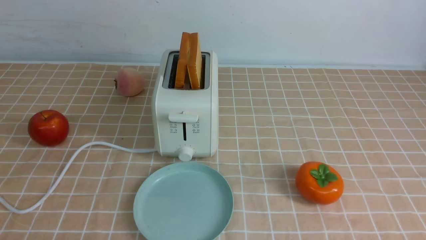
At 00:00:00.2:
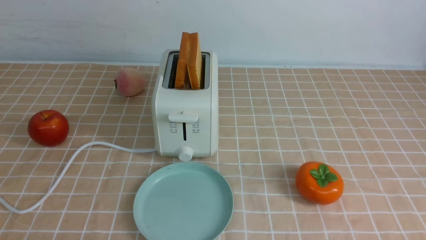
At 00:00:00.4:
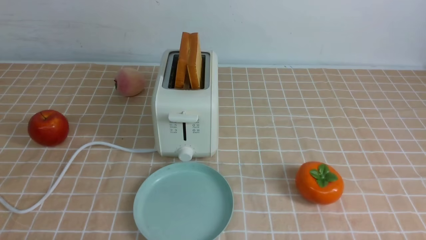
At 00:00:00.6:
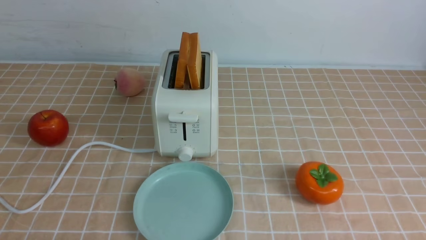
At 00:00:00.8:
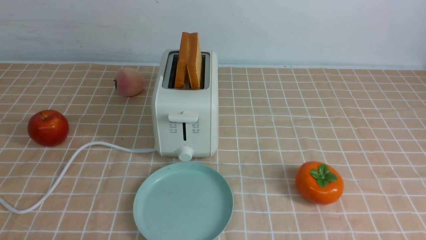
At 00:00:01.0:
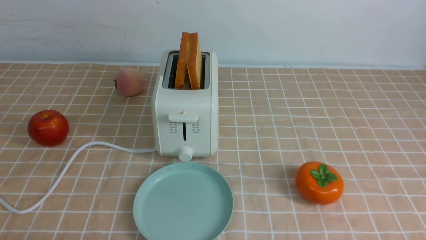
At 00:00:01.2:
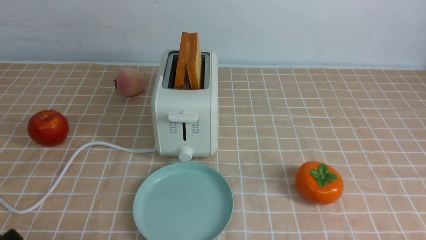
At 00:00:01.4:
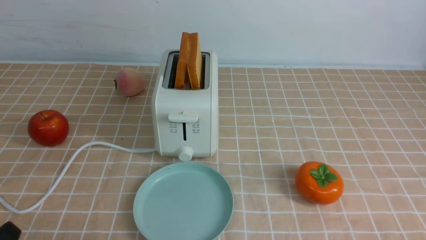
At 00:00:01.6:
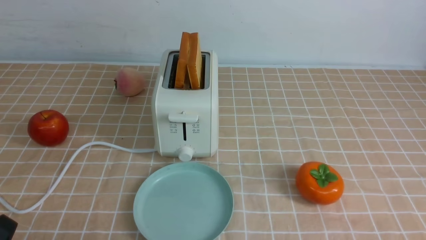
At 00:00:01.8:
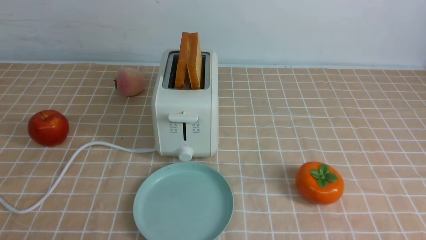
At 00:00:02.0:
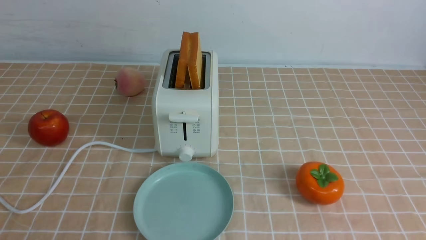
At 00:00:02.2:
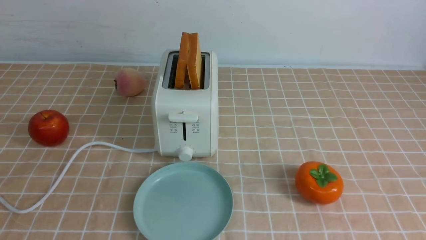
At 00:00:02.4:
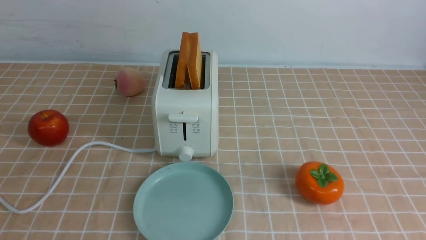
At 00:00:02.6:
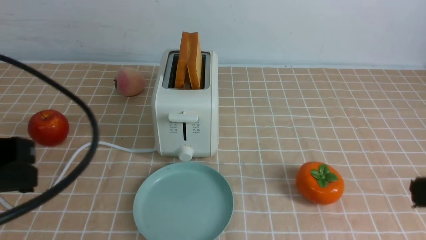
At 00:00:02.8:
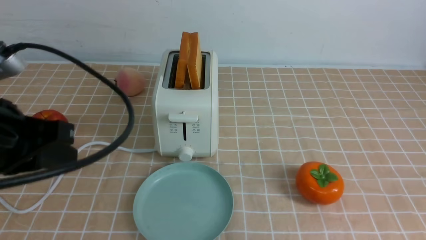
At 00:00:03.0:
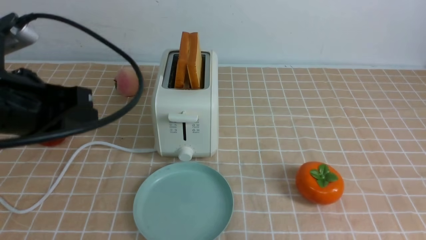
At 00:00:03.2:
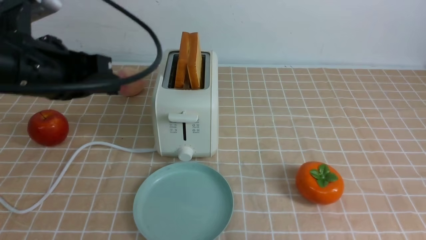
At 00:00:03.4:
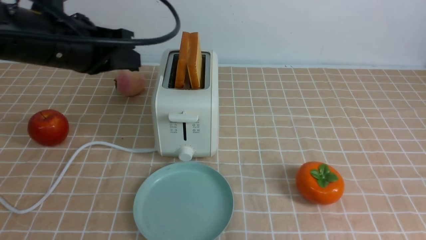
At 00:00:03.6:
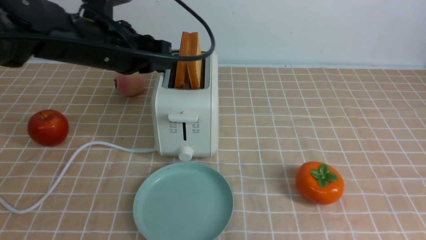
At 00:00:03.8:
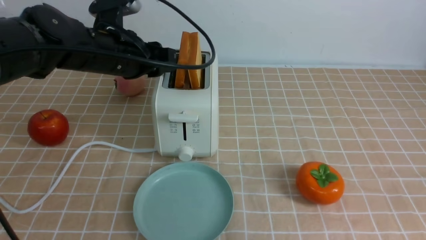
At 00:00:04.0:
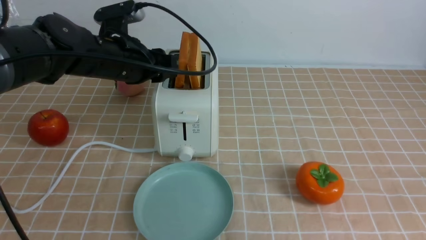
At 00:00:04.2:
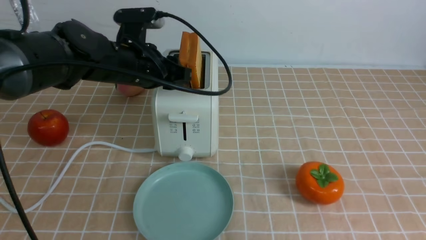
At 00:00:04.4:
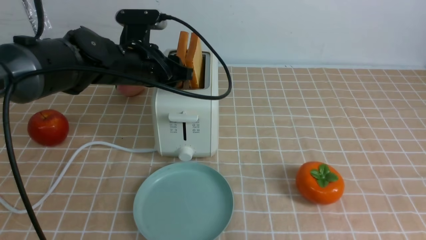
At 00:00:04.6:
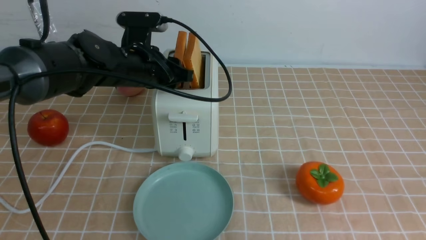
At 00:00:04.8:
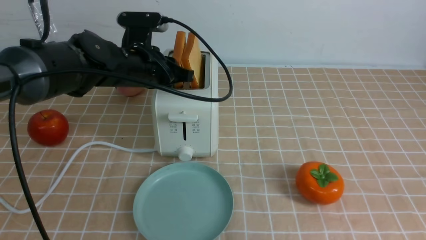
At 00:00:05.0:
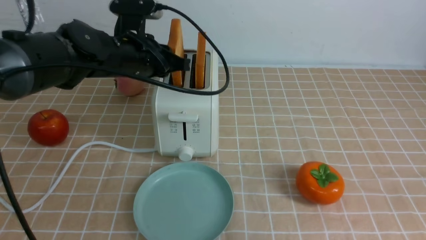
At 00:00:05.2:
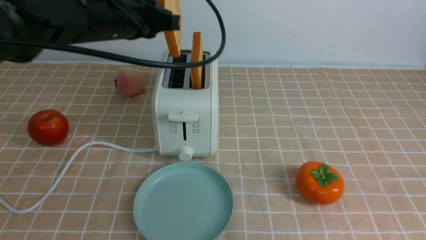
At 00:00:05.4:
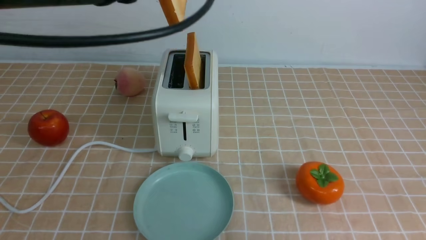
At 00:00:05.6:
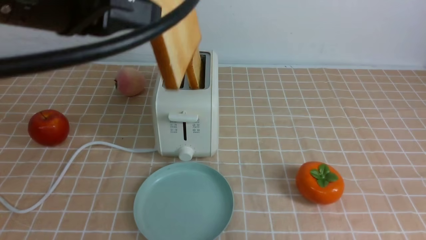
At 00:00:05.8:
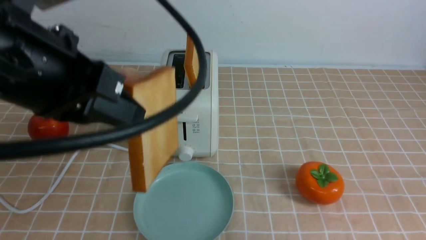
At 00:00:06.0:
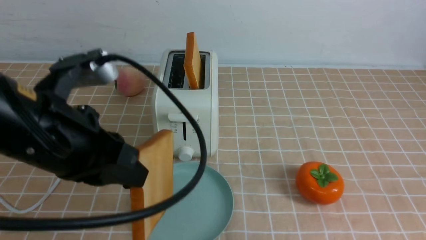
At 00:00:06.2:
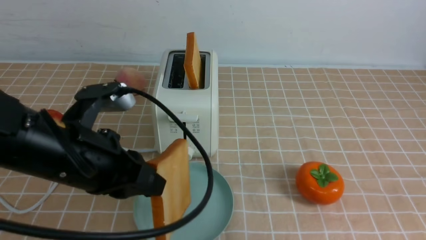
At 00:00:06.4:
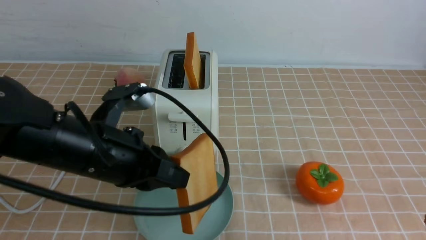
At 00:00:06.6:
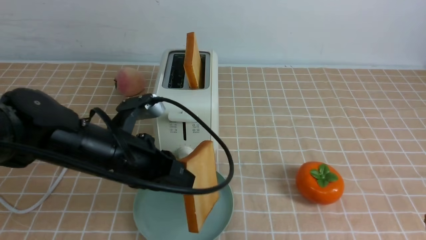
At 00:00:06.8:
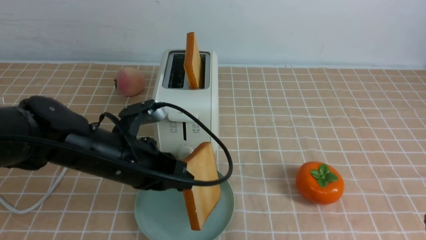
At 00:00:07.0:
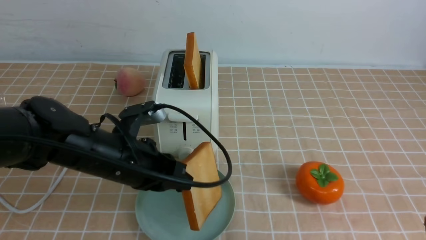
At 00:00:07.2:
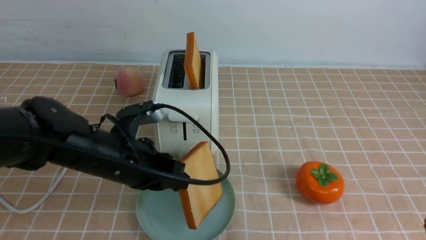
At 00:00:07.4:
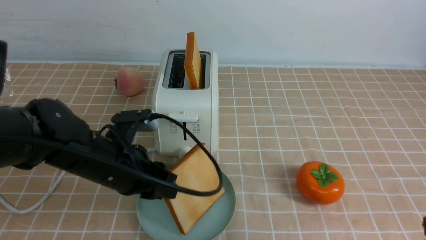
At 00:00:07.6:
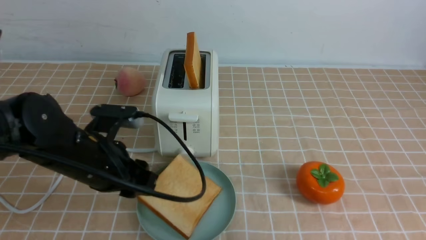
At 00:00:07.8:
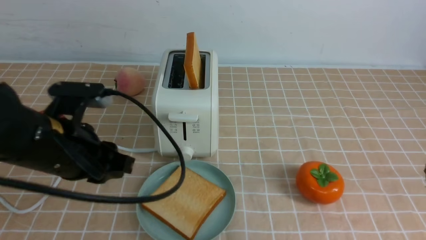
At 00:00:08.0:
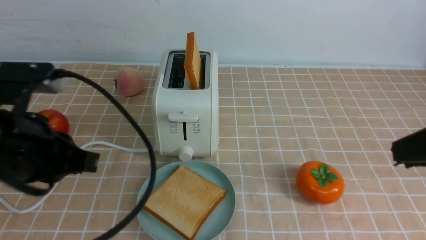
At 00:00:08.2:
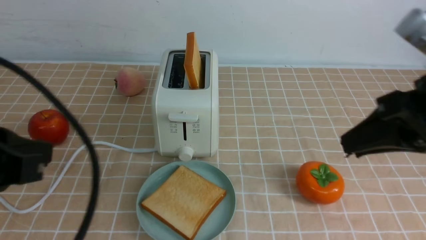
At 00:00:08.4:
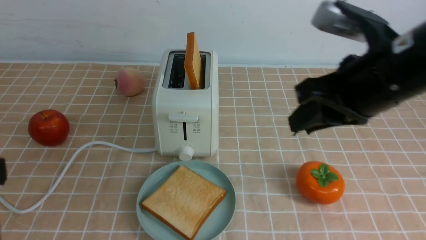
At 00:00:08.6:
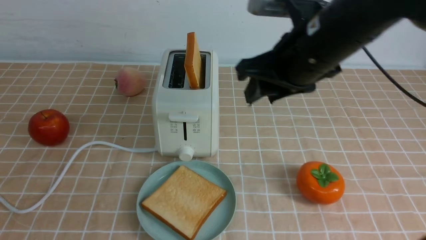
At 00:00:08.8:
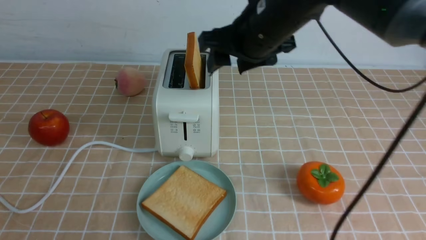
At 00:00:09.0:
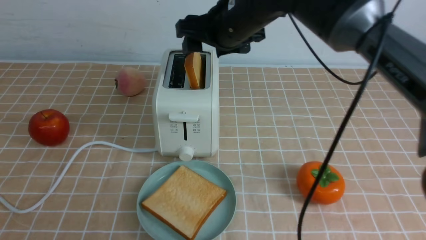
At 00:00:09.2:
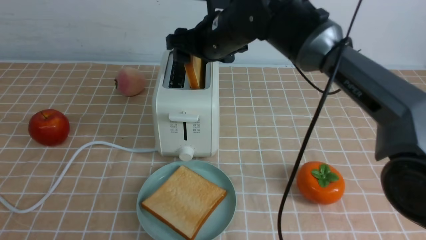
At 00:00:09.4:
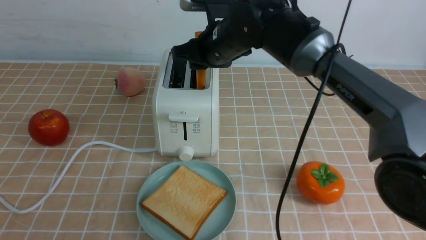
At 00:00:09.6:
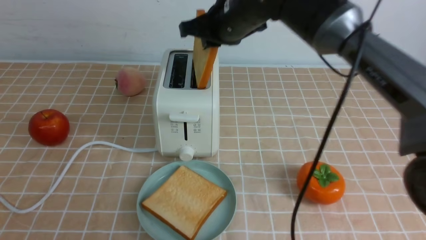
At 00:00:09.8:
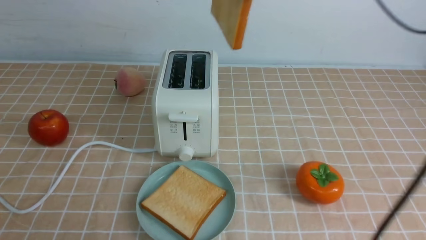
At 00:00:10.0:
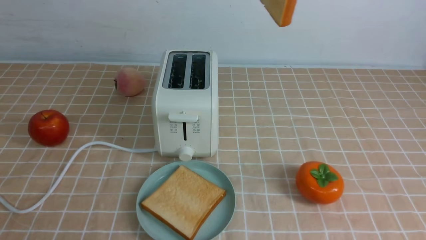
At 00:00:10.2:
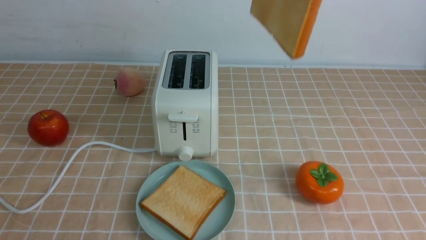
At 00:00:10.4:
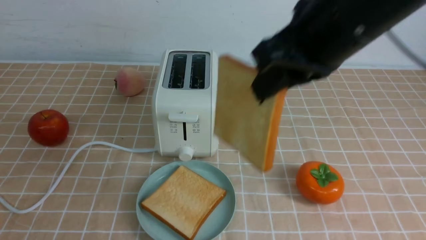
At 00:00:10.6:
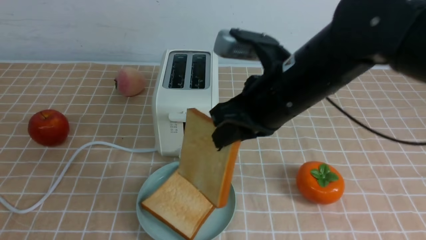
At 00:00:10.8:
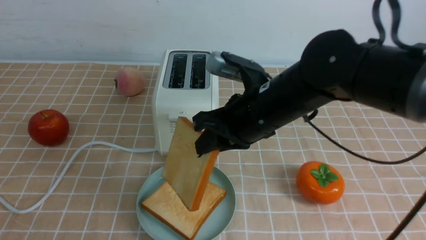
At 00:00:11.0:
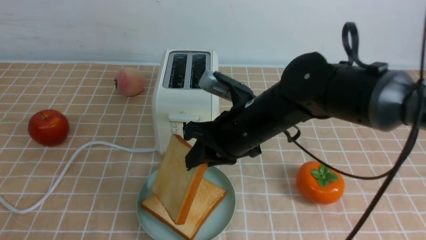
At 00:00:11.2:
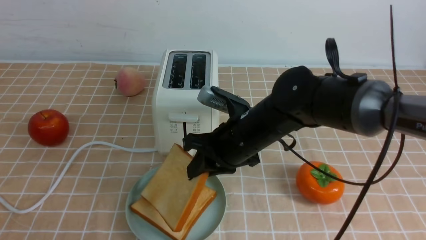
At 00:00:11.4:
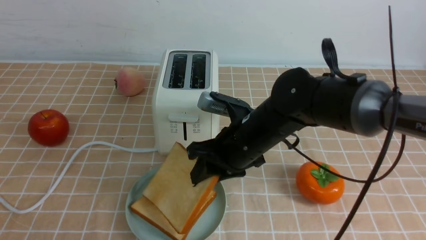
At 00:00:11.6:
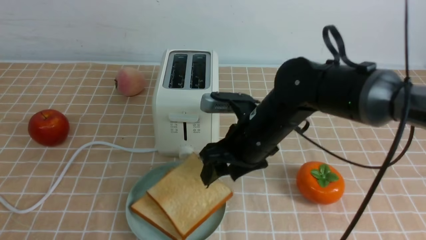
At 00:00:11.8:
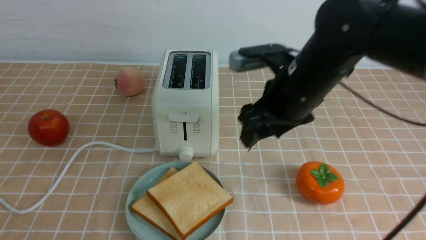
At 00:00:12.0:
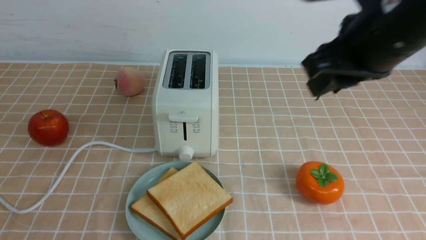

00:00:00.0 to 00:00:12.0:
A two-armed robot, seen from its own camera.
Task of the whole recording: take toasted bread from bread machine on light coffee tablecloth place on plate.
Step, 00:00:00.0 to 00:00:05.0: use the left arm to take out a slice of bread.
Step, 00:00:05.2 to 00:00:07.8: use the left arm to put a slice of bread into the empty plate.
Step, 00:00:08.0 to 00:00:09.4: use the right arm to take out a slice of bread.
Step, 00:00:09.8 to 00:00:11.6: use the right arm to put a slice of bread into the plate.
00:00:01.6 to 00:00:03.0: The left gripper moves forward and upward, approximately 25 cm, and closes up.
00:00:03.0 to 00:00:04.4: The left gripper shifts approximately 20 cm forward, to the right and downward, and opens.
00:00:04.4 to 00:00:06.0: The left gripper moves backward, roughly 20 cm, and closes up.
00:00:06.0 to 00:00:07.6: The left gripper travels downward by some 10 cm, and opens its fingers.
00:00:07.6 to 00:00:09.0: The left gripper goes approximately 25 cm backward, and closes its fingers, while the right gripper shifts approximately 35 cm forward and to the left, and opens its fingers.
00:00:09.0 to 00:00:10.4: The right gripper is displaced backward and to the right by approximately 15 cm, reaches some 15 cm upward, then returns, and closes.
00:00:10.4 to 00:00:12.0: The right gripper is displaced to the right by about 5 cm, moves about 20 cm downward and comes back, and opens, then closes again.

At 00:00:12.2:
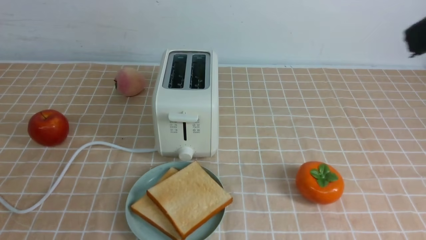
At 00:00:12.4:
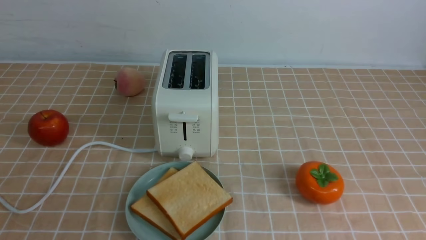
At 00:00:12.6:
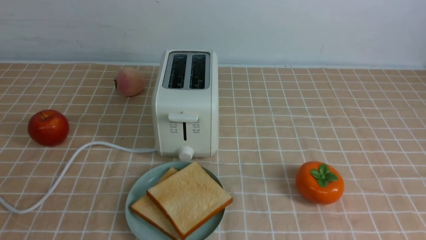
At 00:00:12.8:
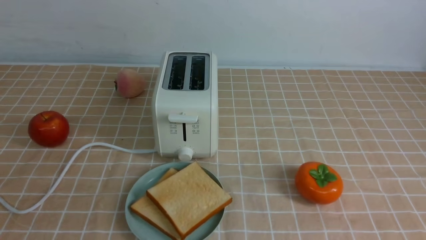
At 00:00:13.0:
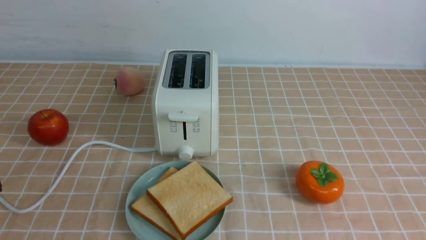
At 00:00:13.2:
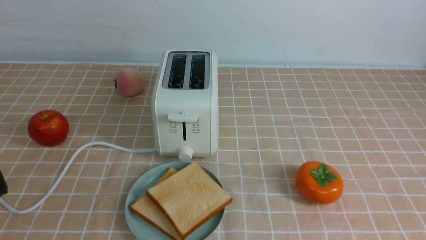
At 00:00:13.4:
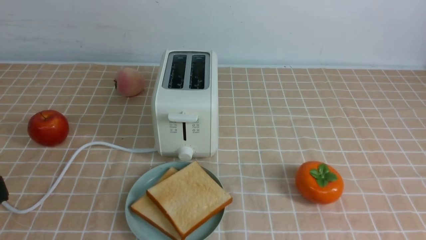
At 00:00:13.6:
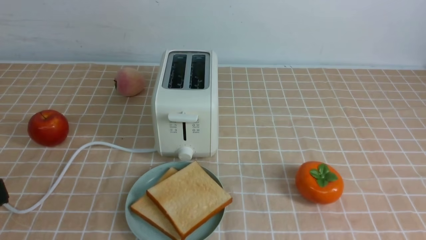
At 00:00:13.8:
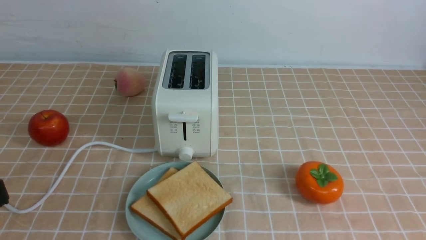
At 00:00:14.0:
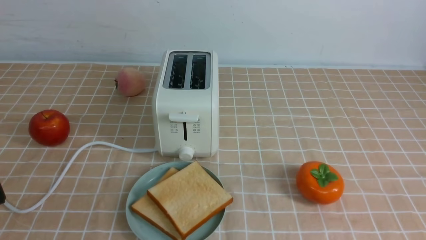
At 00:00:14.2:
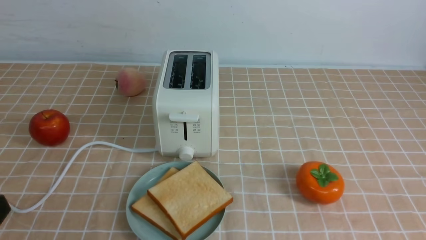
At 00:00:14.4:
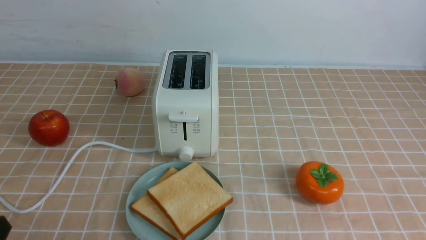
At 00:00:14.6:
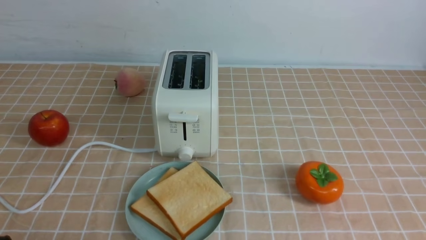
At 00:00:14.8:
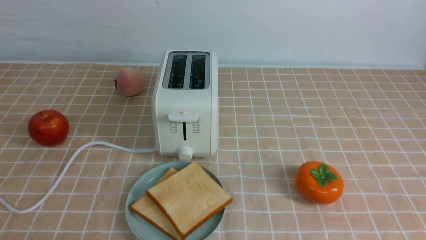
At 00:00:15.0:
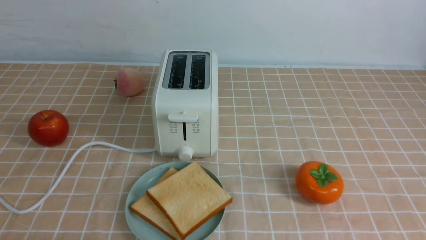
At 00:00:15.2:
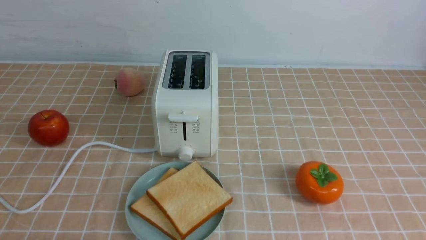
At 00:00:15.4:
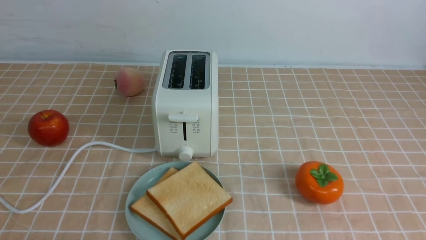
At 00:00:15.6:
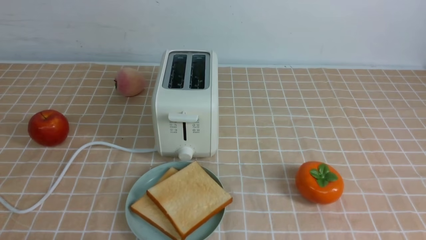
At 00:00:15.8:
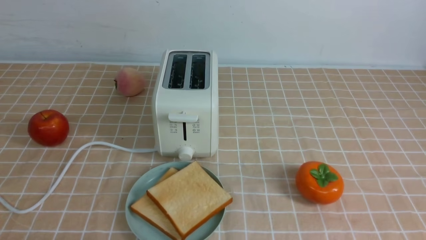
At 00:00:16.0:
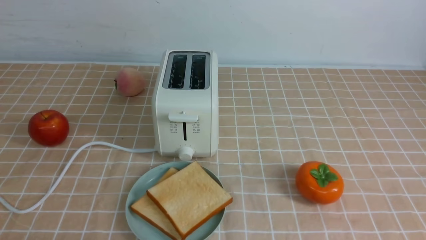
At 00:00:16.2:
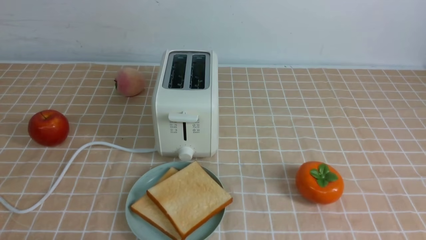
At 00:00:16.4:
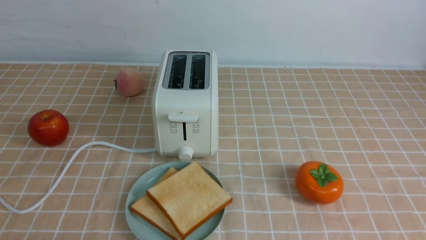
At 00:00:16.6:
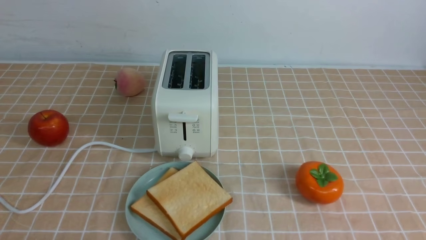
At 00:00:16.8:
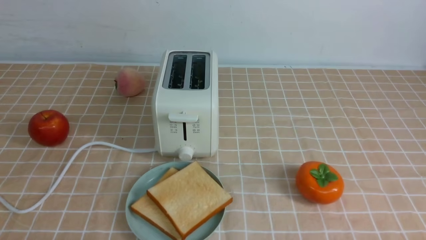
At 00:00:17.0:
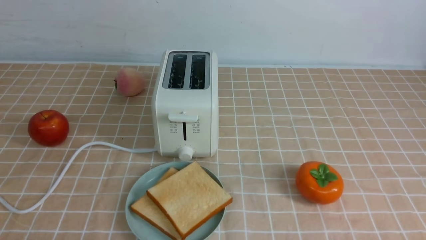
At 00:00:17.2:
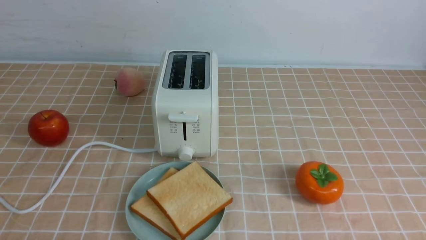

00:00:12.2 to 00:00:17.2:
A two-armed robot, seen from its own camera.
Task of the whole recording: take toasted bread from bread machine on light coffee tablecloth place on plate.
00:00:12.2 to 00:00:13.8: The right gripper shifts approximately 20 cm downward, backward and to the right.
